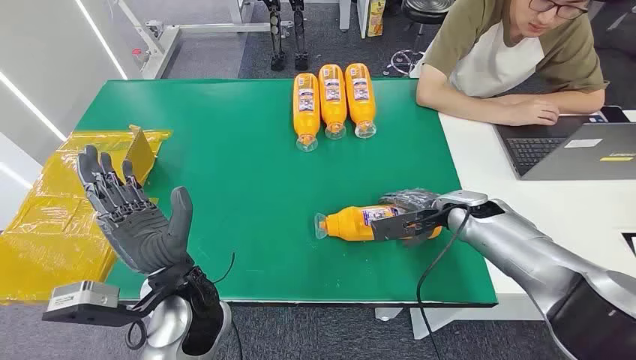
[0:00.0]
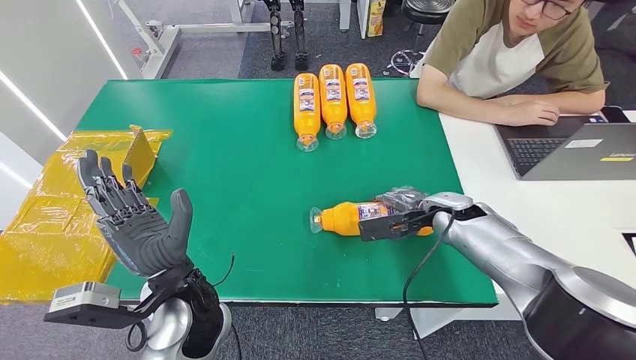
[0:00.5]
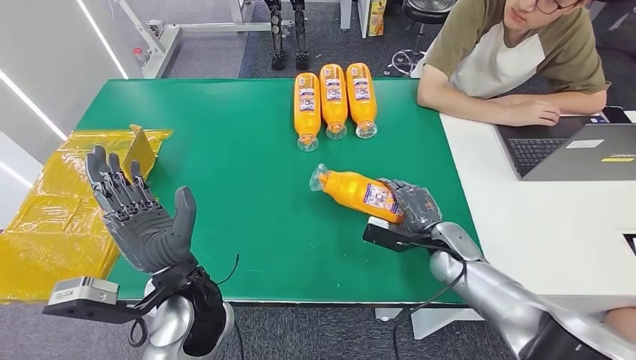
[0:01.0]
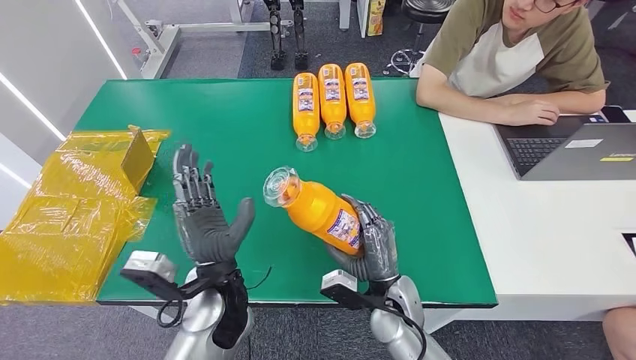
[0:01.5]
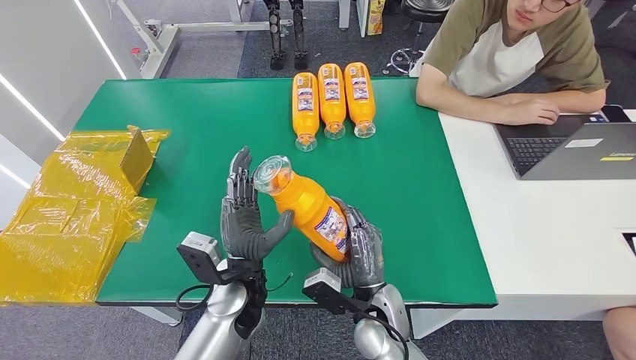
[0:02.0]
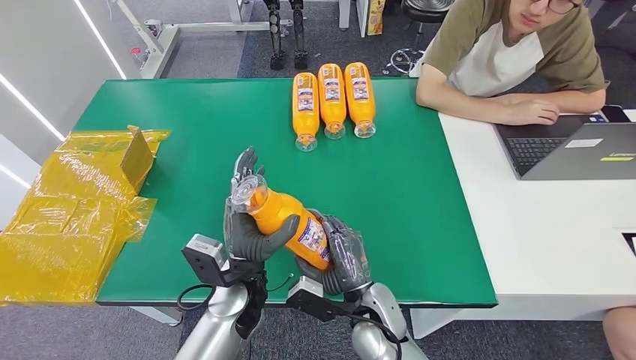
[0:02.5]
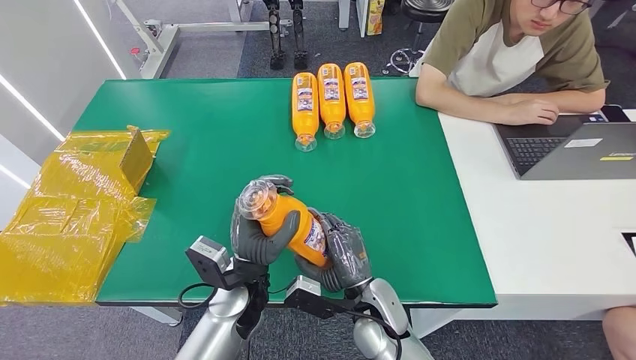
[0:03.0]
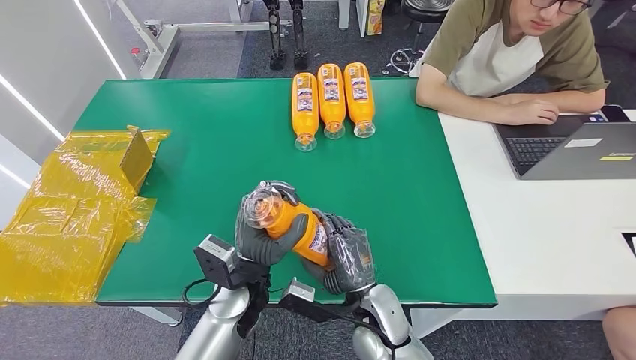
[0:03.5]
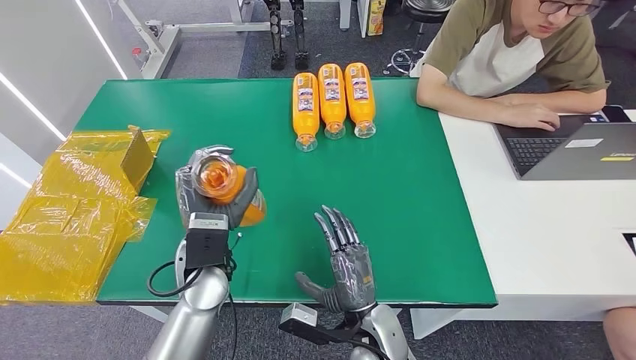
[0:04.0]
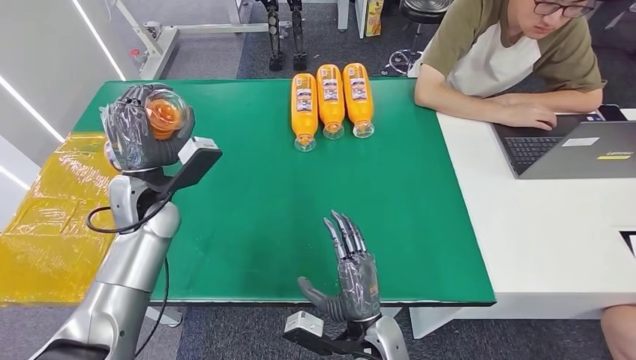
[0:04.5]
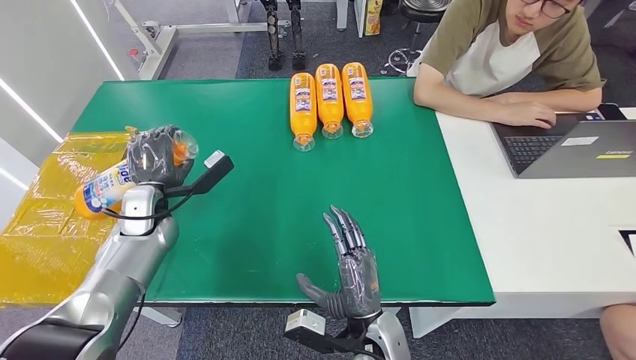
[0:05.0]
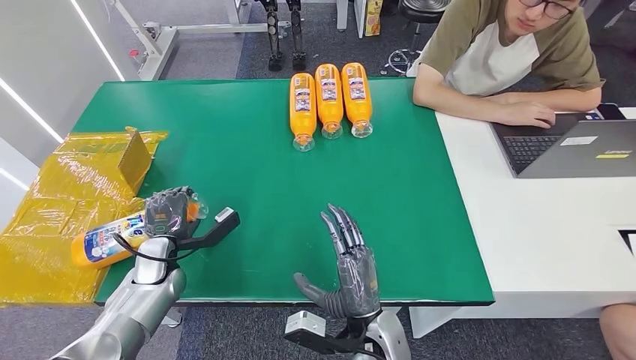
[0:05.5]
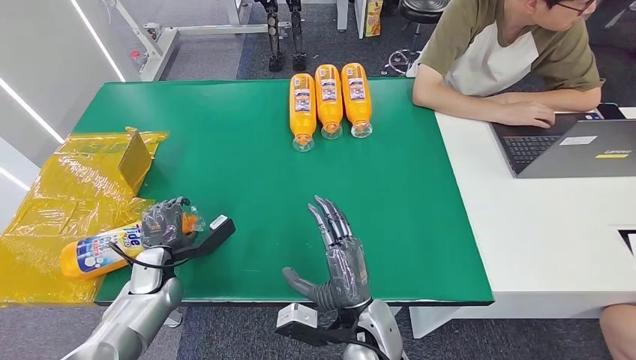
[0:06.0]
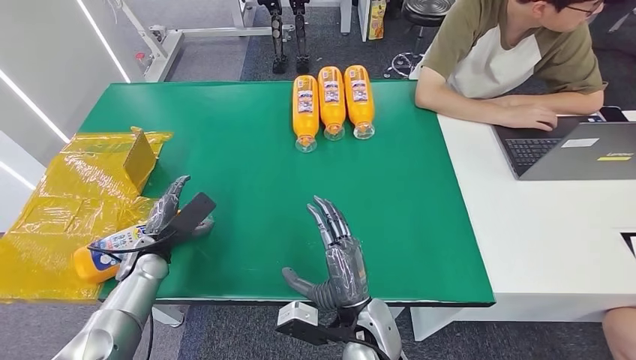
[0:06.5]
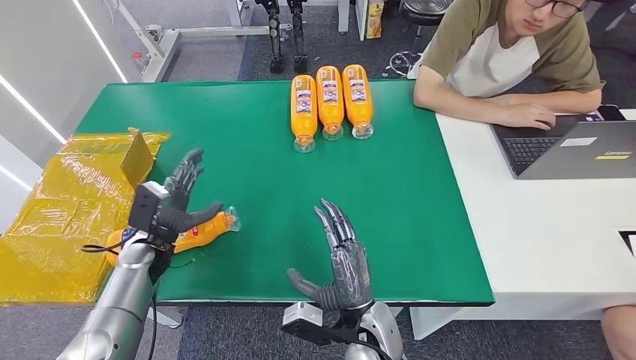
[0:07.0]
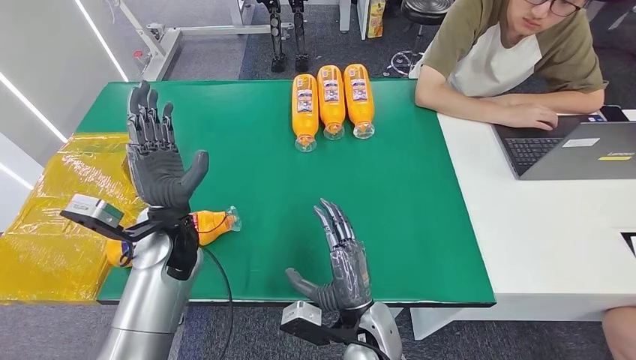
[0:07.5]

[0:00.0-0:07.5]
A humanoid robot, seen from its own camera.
Step, 0:00.0 to 0:01.0: Pick up the bottle from the table.
Step, 0:01.5 to 0:07.5: Turn the bottle to the front side.
0:02.0 to 0:04.0: The left hand ends up about 5 cm from where it was.
0:05.5 to 0:07.5: The left hand shifts about 15 cm upward and to the right.

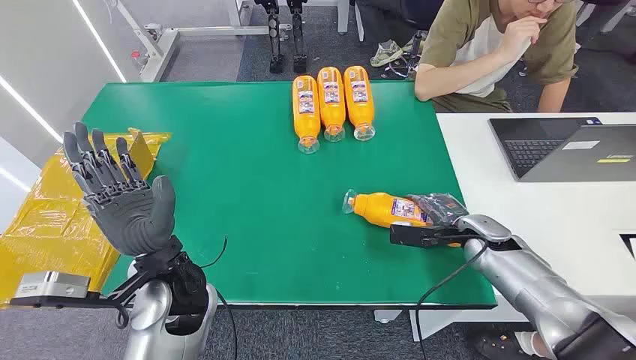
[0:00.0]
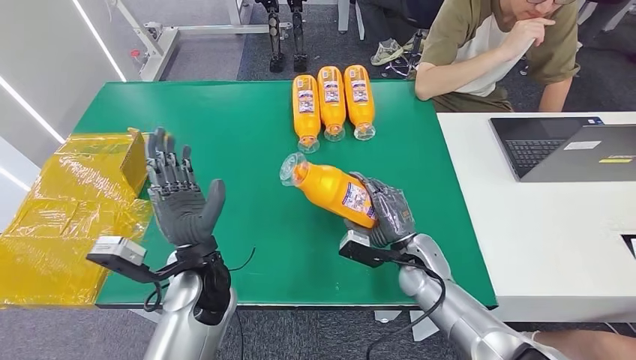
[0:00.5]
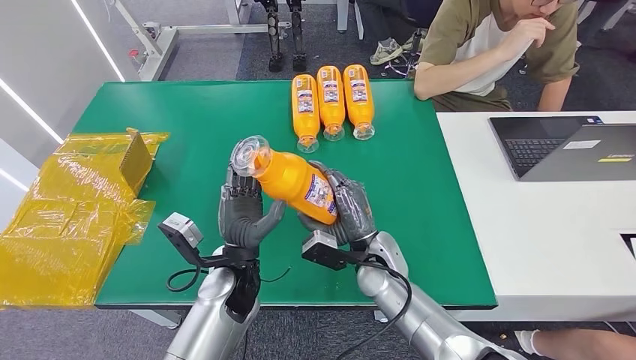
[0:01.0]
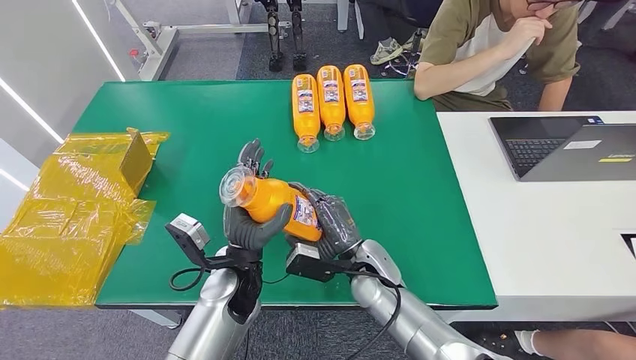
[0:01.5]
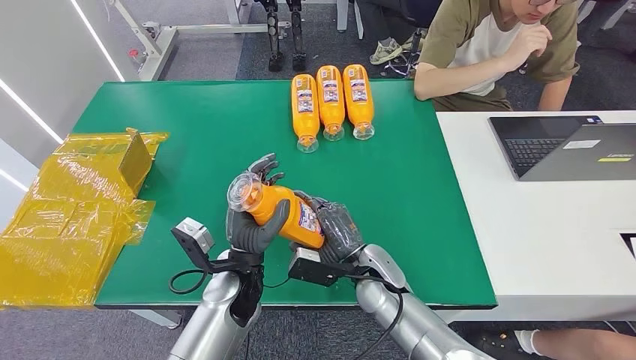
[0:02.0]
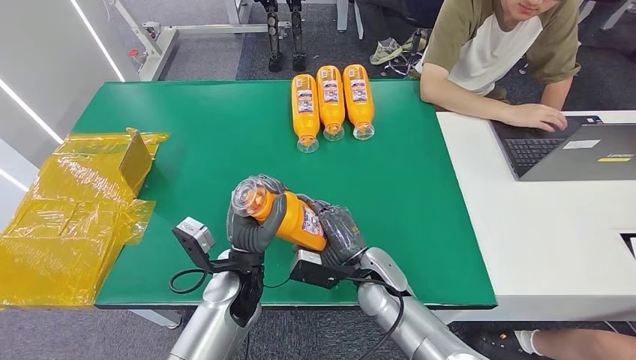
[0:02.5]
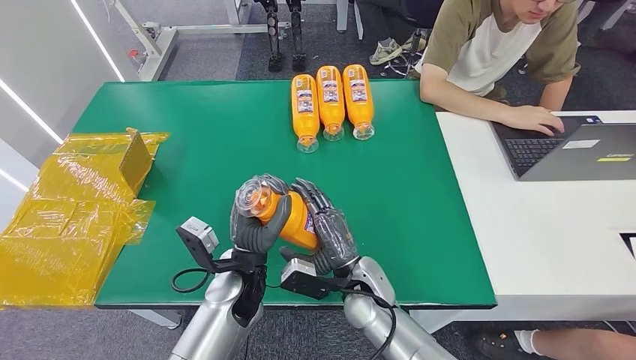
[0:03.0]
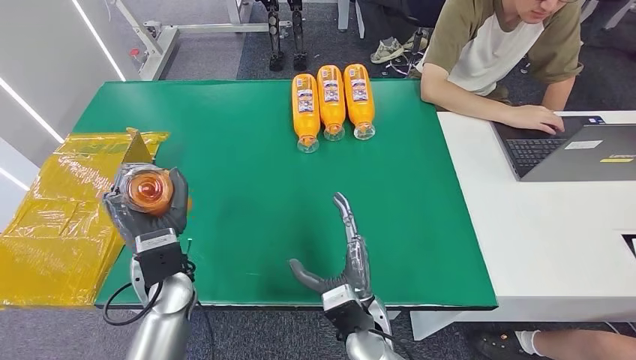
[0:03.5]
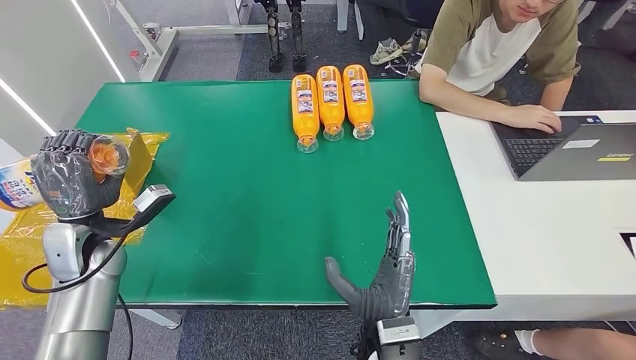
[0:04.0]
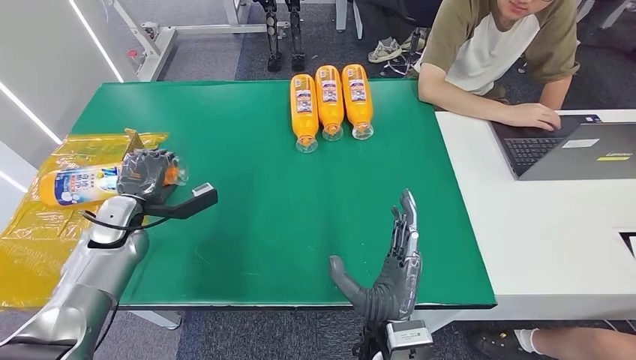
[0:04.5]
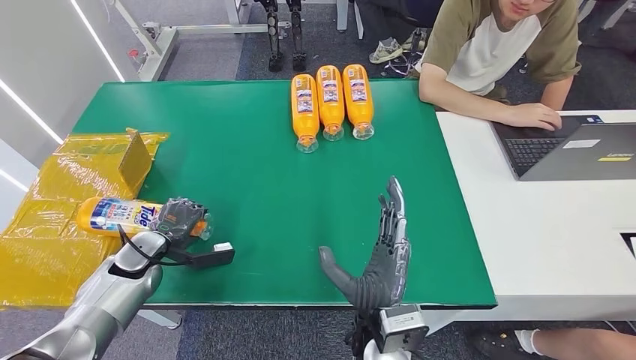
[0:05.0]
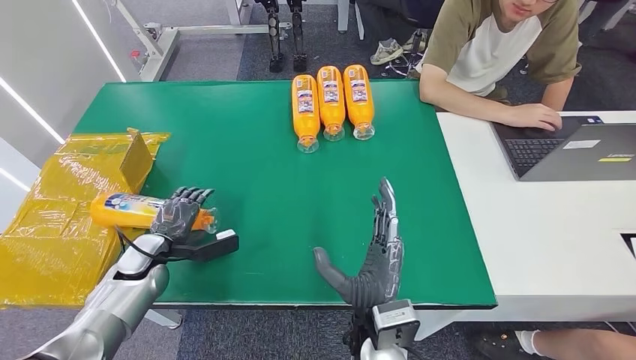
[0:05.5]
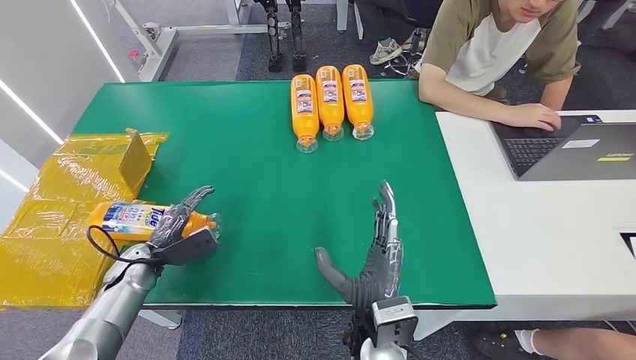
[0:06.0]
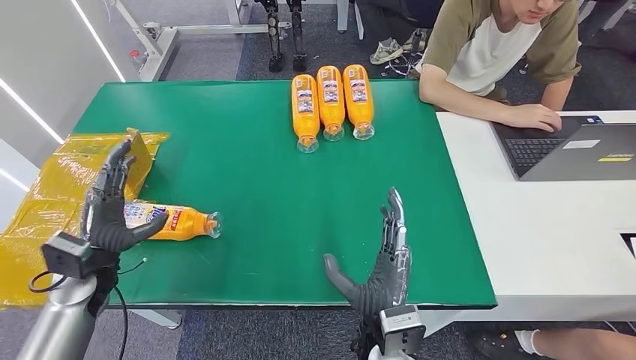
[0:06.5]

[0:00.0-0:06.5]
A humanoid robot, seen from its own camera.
Step, 0:00.0 to 0:01.0: Pick up the bottle from the table.
Step, 0:01.5 to 0:06.5: Turn the bottle to the front side.
0:04.5 to 0:06.5: The left hand travels backward by roughly 10 cm, and travels downward and back again, approximately 10 cm each way.
